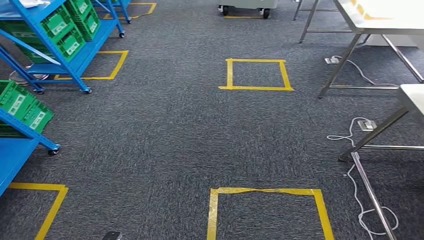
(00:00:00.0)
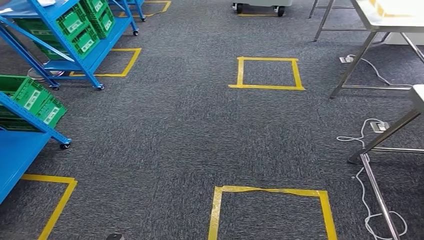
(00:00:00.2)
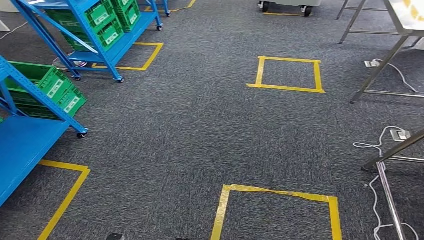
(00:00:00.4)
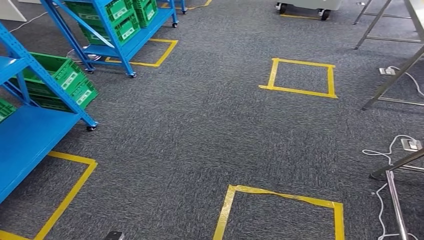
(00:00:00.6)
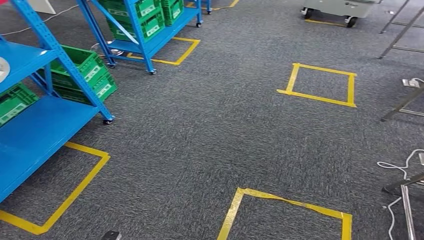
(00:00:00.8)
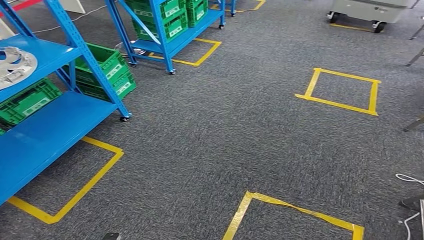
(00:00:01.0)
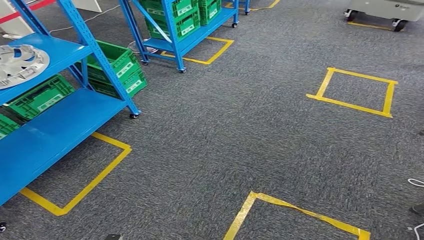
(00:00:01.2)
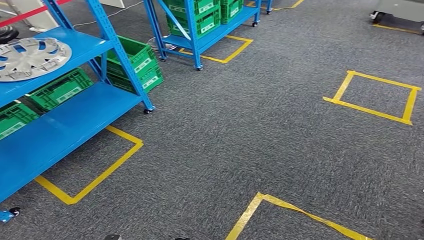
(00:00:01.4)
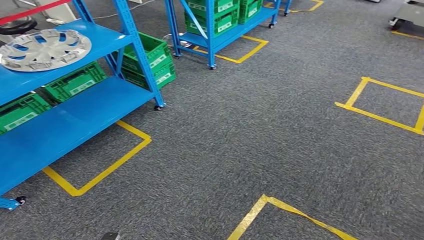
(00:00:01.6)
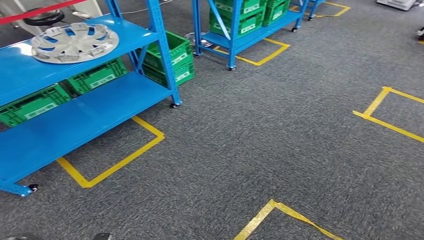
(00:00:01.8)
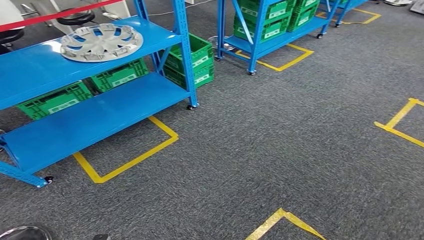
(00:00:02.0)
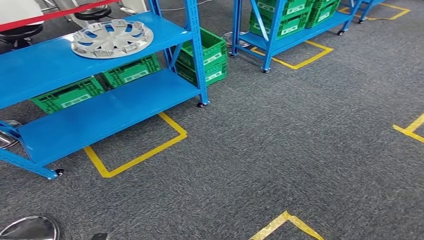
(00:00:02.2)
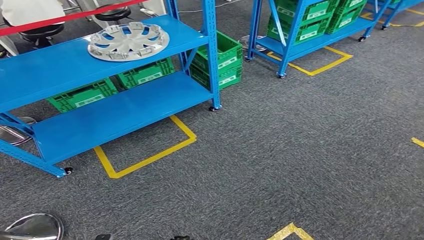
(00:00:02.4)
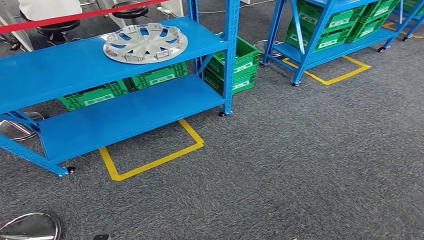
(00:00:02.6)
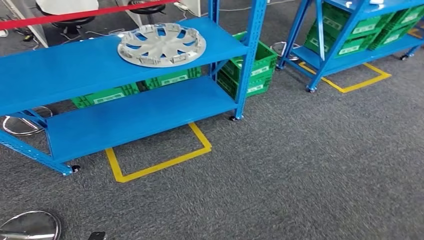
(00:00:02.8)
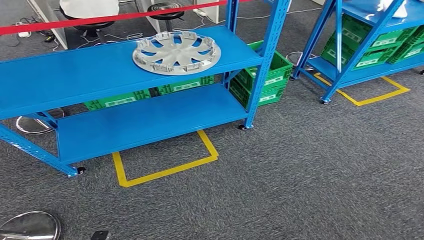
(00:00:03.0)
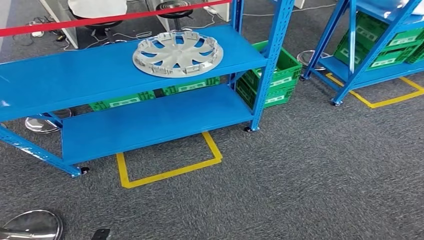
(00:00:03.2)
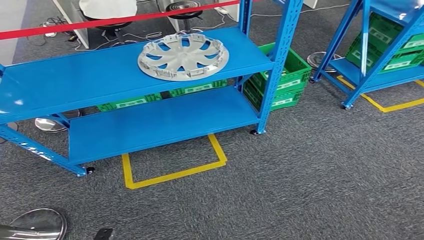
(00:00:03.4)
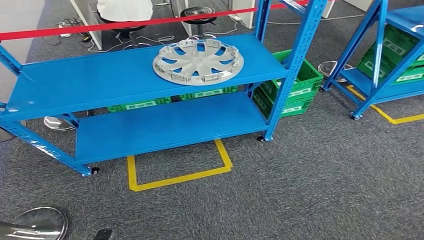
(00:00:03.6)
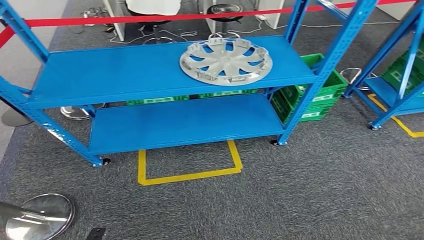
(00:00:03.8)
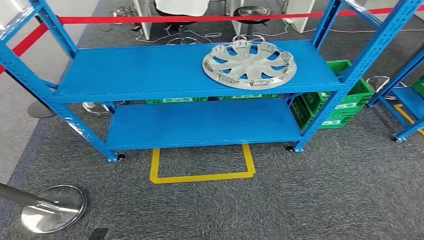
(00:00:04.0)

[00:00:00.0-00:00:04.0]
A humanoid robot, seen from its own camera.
Step, 00:00:00.0 to 00:00:03.6: Move to the initial position at the workbench.
